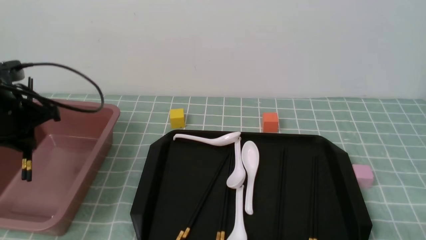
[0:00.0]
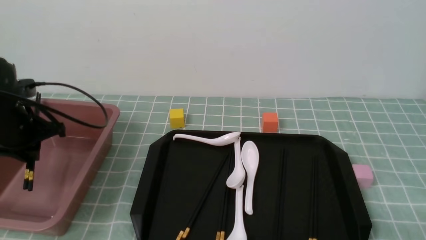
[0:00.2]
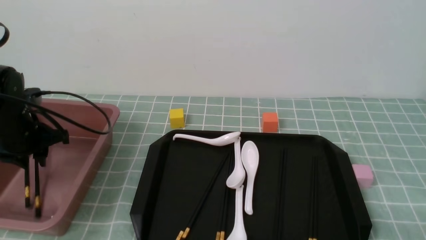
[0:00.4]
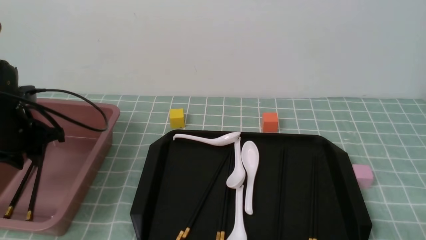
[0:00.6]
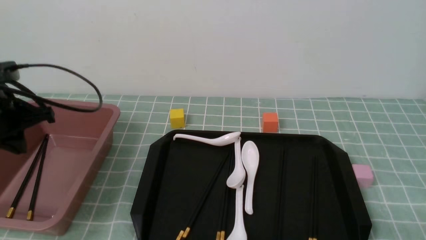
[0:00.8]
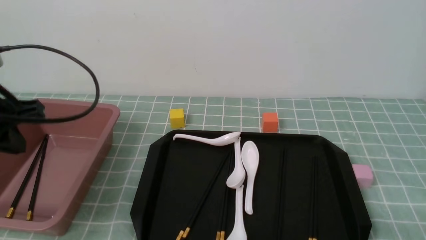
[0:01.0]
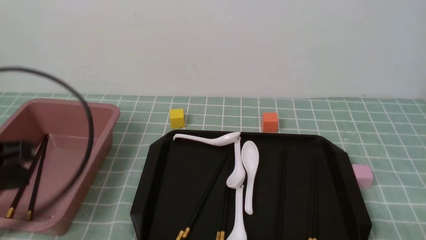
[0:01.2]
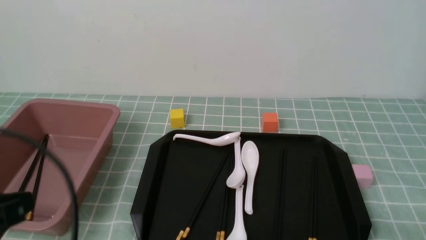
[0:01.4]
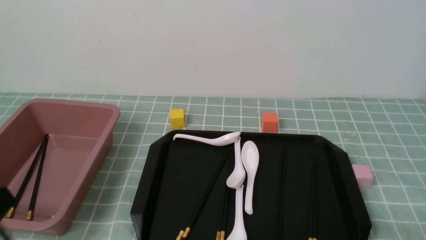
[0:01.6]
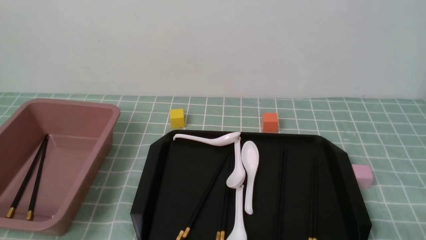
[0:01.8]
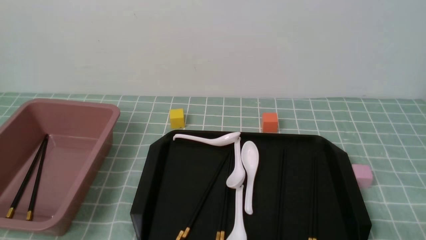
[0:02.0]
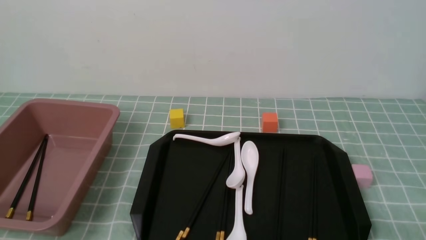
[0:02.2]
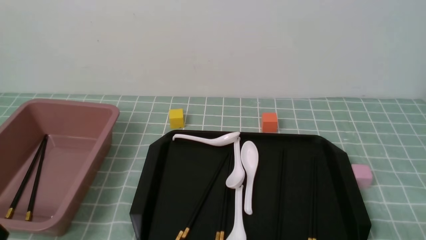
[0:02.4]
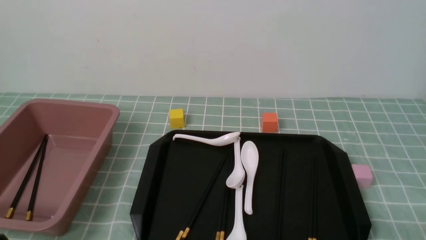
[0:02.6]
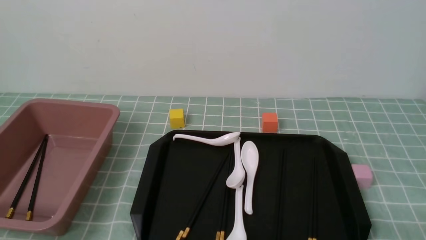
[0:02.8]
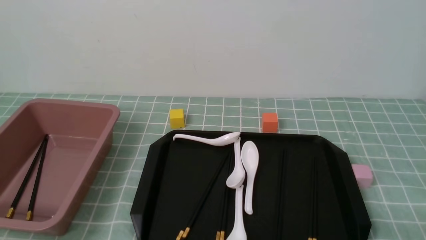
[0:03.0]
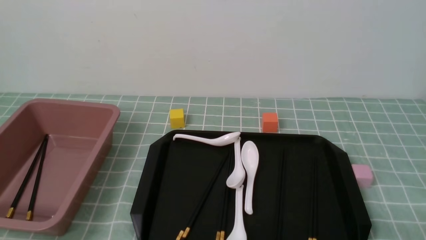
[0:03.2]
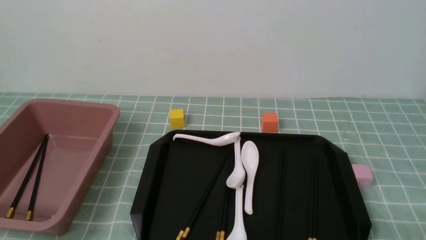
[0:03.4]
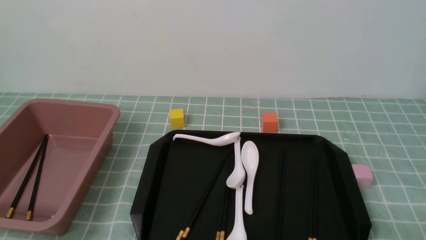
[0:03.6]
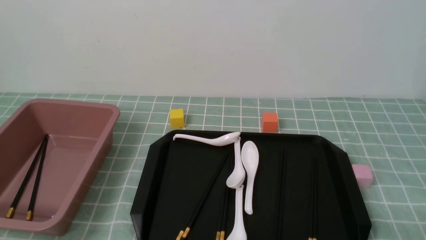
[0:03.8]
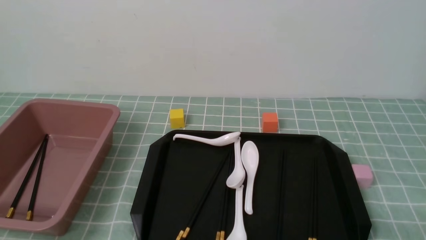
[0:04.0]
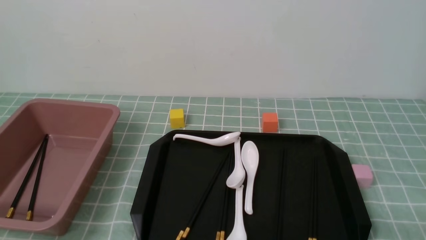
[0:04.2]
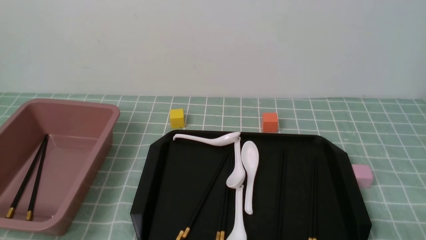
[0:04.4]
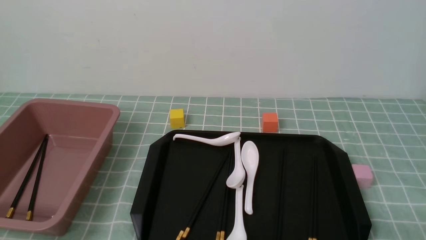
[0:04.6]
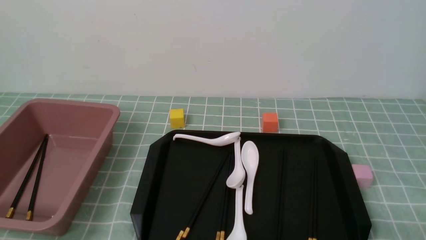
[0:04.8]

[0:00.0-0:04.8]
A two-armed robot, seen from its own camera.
Step, 0:00.0 to 0:00.8: use the left arm to put the chopsticks into the lunch box.
0:00.0 to 0:01.6: The left gripper moves backward, some 25 cm, and closes up.
0:03.2 to 0:04.8: Both grippers stay about where they are.
